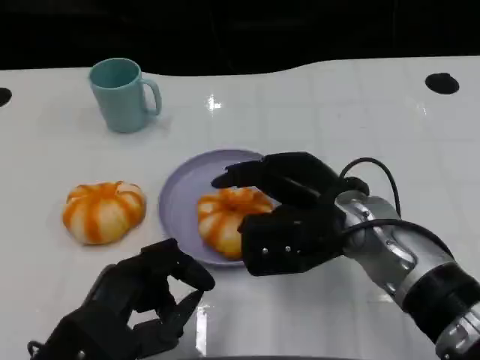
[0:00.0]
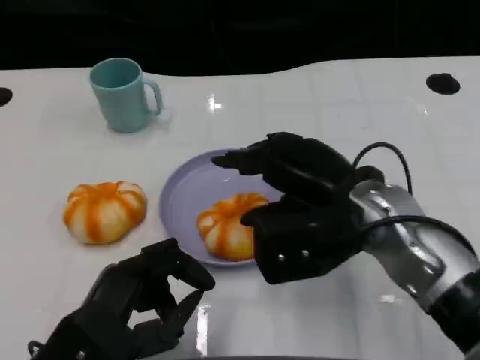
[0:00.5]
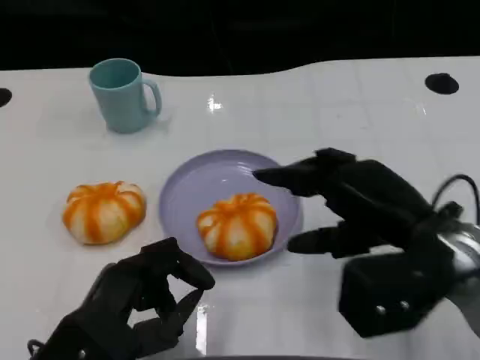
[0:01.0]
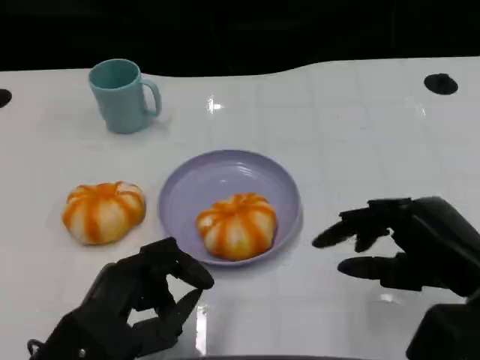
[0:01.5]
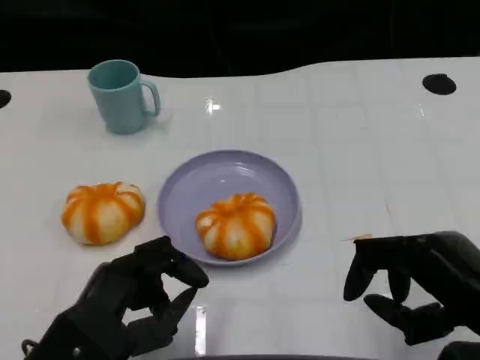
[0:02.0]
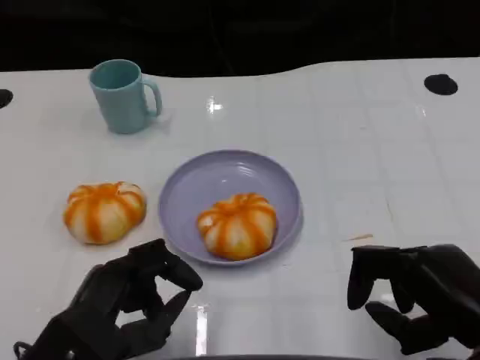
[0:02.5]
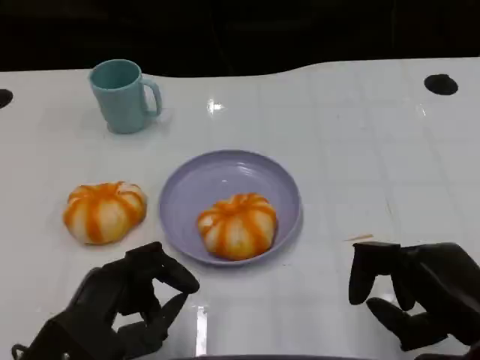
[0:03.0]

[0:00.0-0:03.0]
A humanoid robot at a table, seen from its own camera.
Task of the whole recording: Grasp the bread from the table and place it into the plate.
0:00.0 to 0:01.5: The right hand travels to the right and backward by about 15 cm.
0:01.5 to 0:03.0: The hands stay close to where they were, moving slightly.

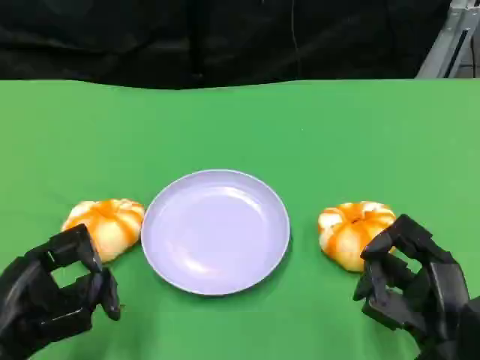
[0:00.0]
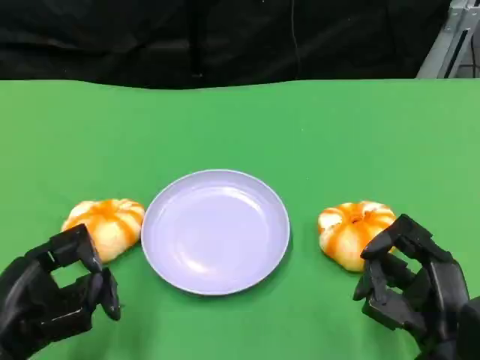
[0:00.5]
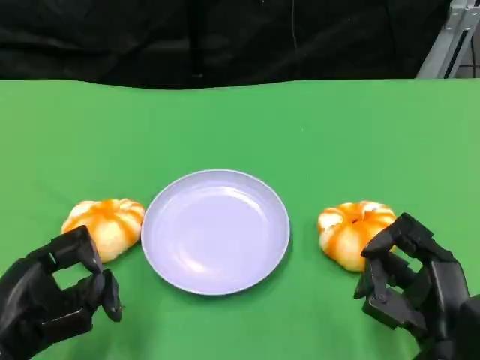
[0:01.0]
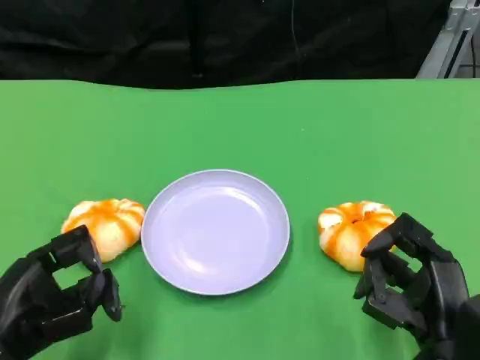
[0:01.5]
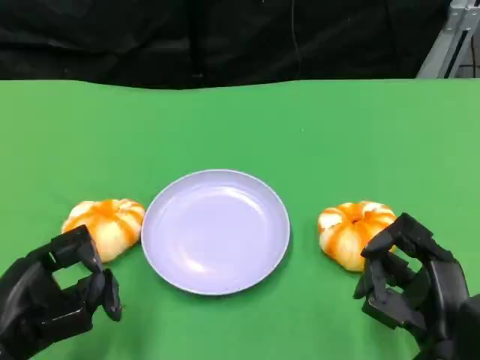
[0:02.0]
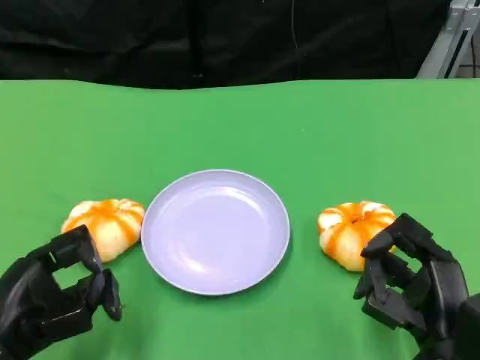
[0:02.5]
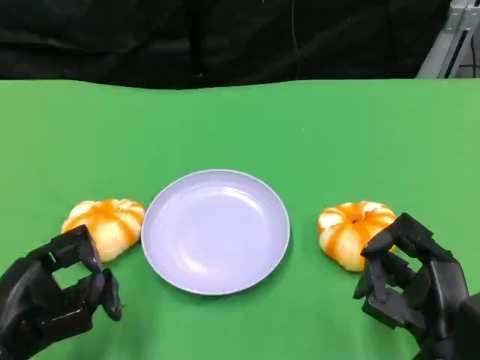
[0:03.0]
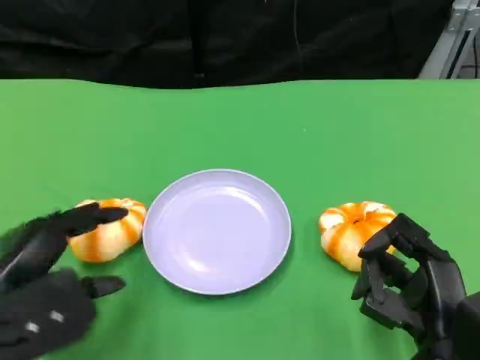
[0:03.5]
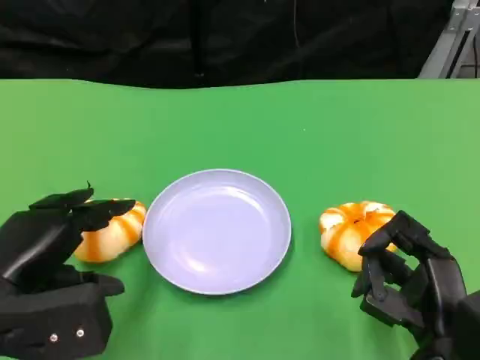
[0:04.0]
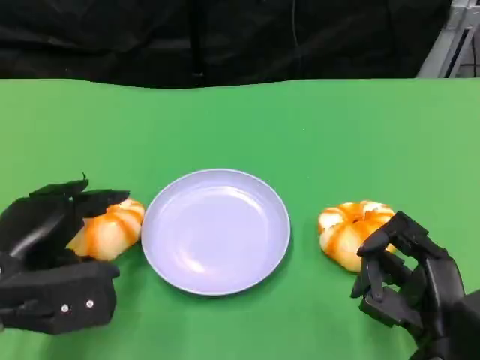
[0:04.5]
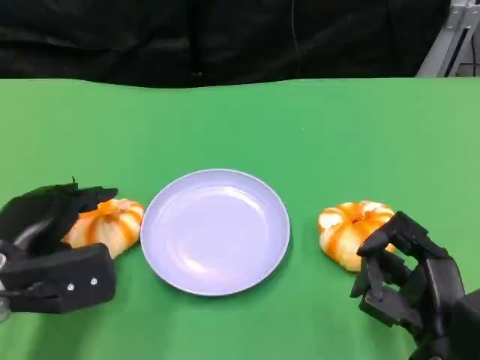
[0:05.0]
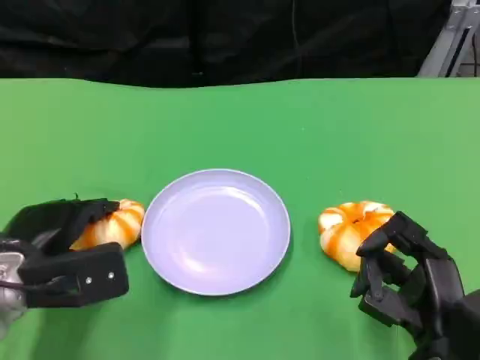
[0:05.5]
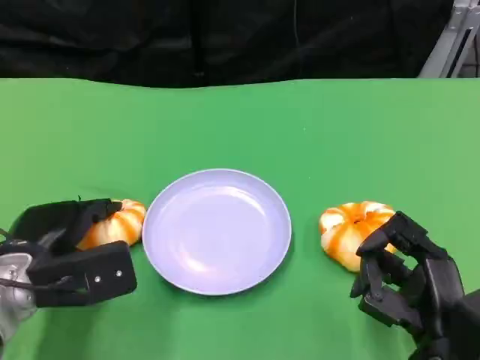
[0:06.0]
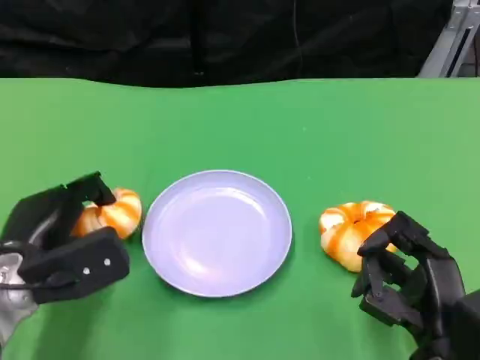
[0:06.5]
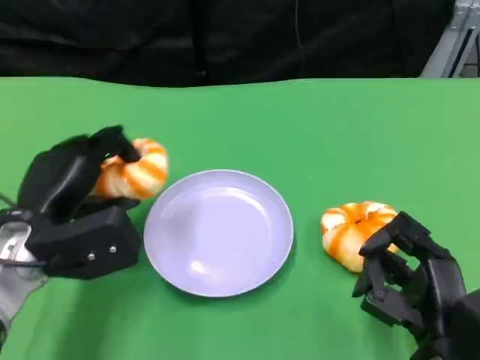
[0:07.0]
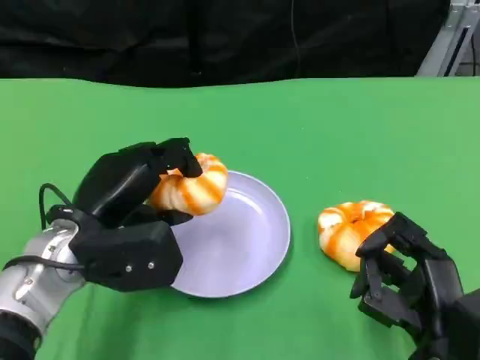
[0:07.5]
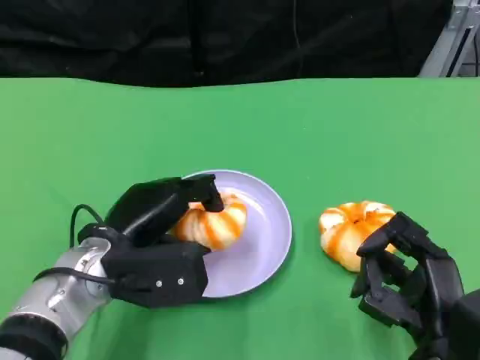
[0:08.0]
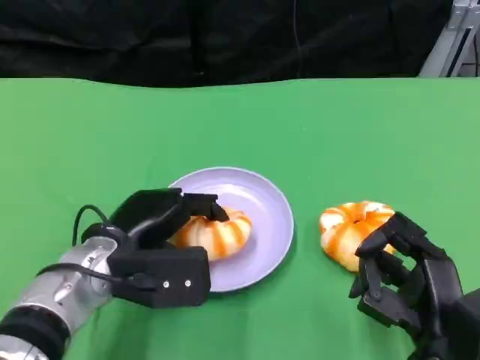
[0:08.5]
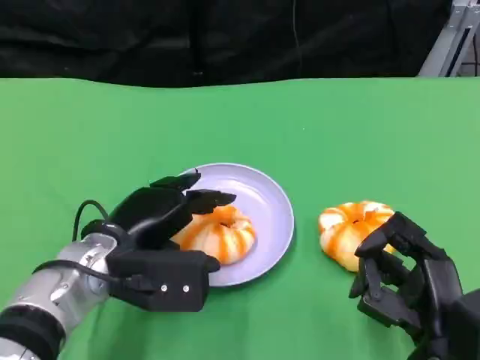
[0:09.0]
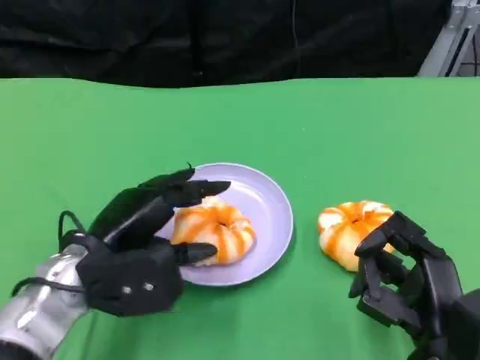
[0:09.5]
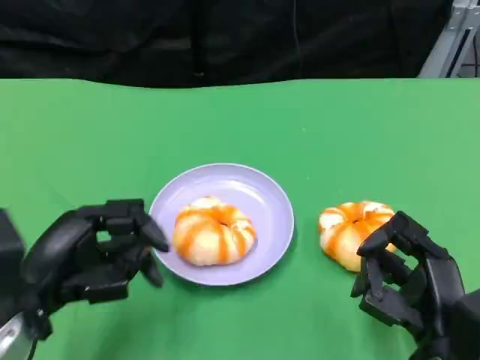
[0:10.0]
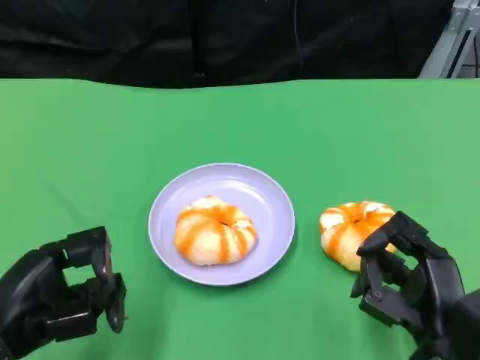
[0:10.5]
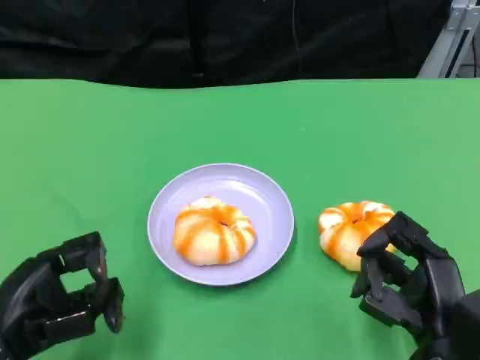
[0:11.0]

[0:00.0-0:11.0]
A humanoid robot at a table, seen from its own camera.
Task of the whole recording: Grasp the bread from the table and place it into the plate.
0:00.0 to 0:02.0: Both hands stay about where they are.
0:03.5 to 0:05.5: The left hand travels forward by roughly 5 cm.
0:05.5 to 0:07.5: The left hand shifts roughly 5 cm to the right.
0:07.5 to 0:09.0: The hands make only small movements.
0:09.0 to 0:11.0: The left hand is displaced to the left and backward by about 15 cm.

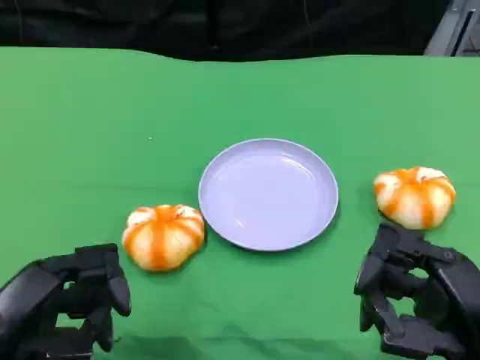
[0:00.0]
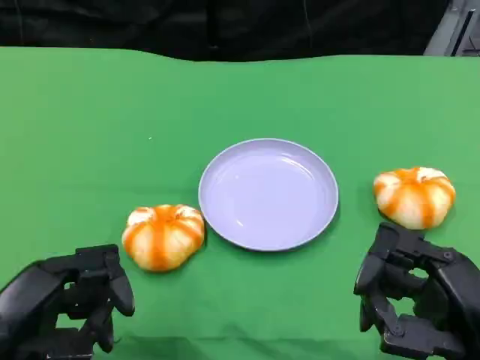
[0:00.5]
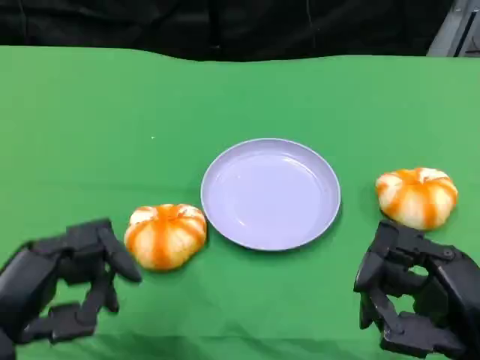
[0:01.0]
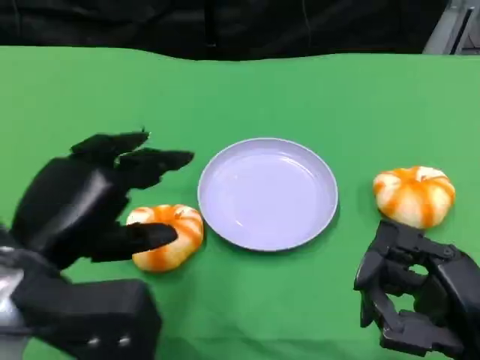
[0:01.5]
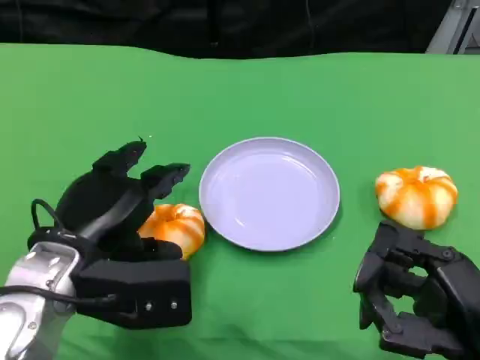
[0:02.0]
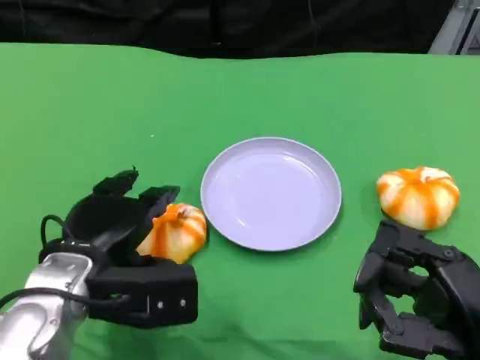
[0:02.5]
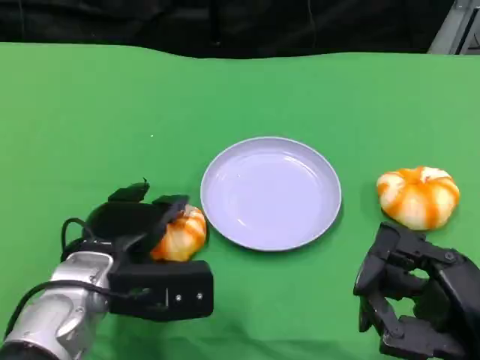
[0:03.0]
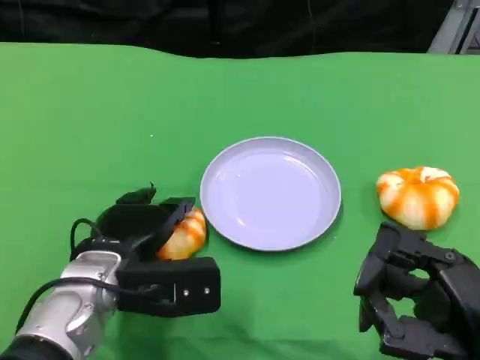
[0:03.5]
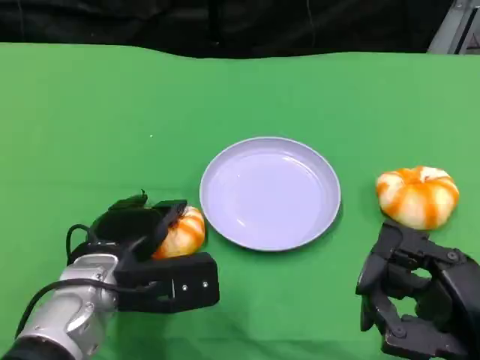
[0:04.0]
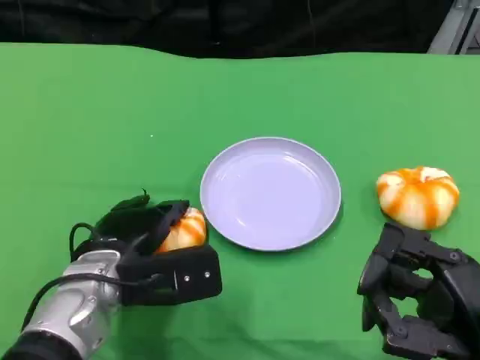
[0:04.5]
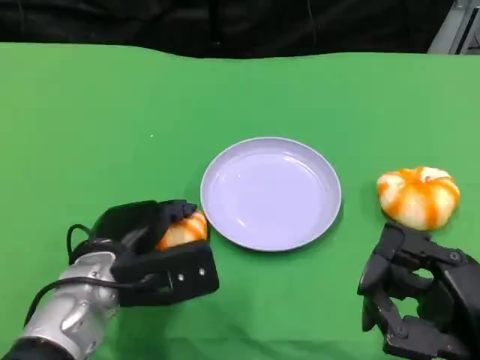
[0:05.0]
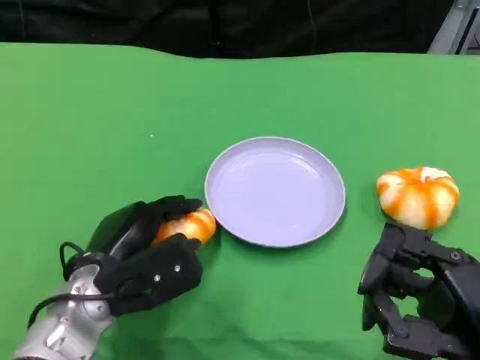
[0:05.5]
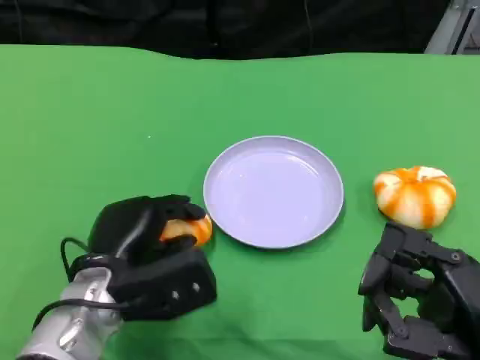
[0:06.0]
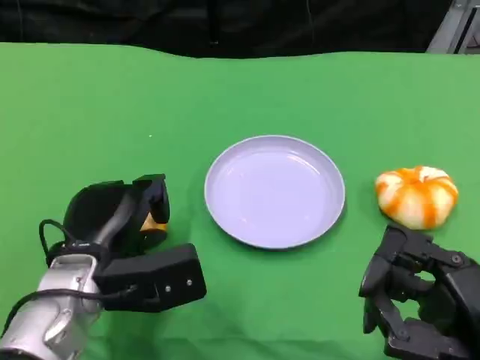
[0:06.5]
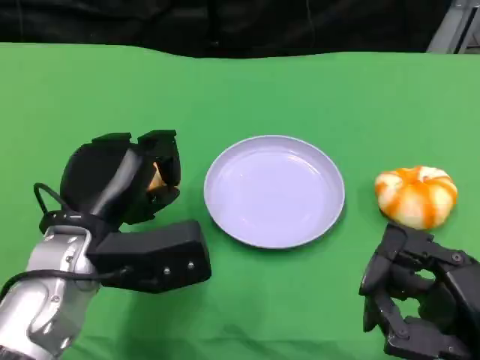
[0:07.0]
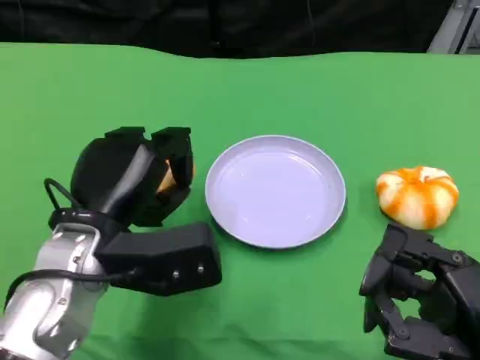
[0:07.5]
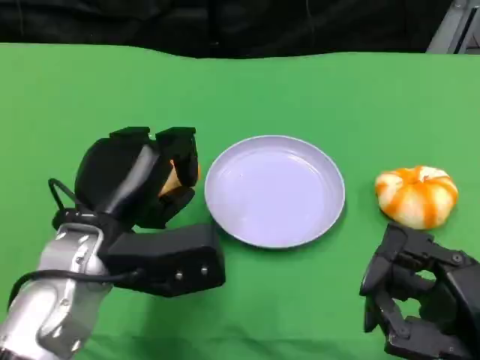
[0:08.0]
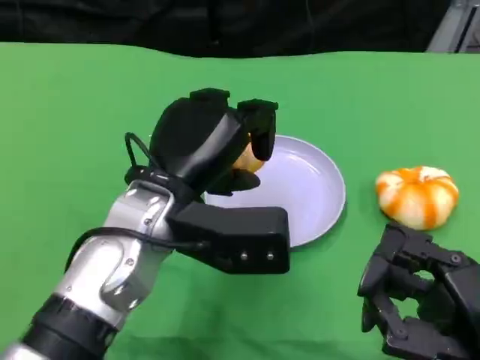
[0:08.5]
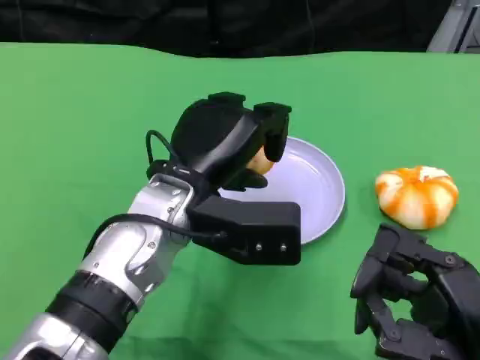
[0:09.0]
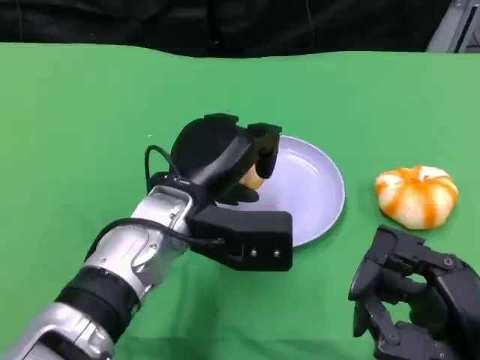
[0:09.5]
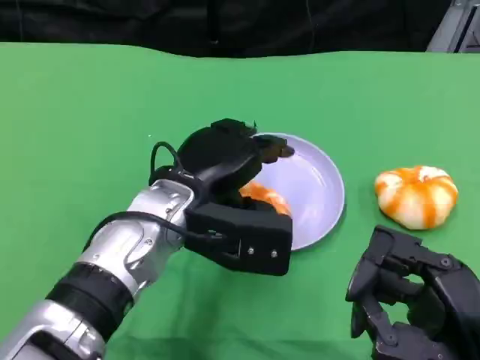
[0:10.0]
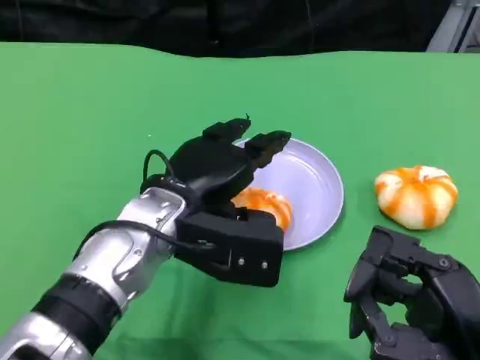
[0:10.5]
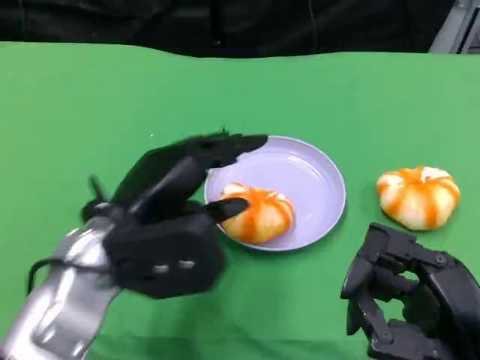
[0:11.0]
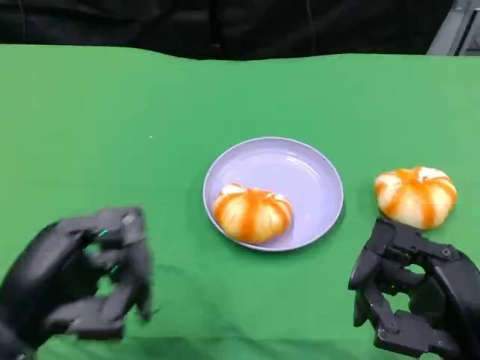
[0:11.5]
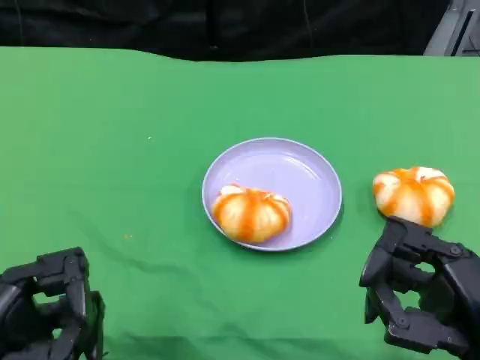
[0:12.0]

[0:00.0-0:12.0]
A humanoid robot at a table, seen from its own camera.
Task of the whole recording: Grasp the bread from the table and place it into the plate.
0:00.0 to 0:02.0: The left hand goes some 15 cm forward and to the right.
0:02.0 to 0:04.0: The left hand goes some 5 cm downward.
0:06.0 to 0:08.0: The left hand travels upward by some 10 cm.
0:08.0 to 0:10.0: The left hand shifts roughly 5 cm to the right.
0:10.0 to 0:12.0: The left hand moves to the left and backward, approximately 25 cm.
